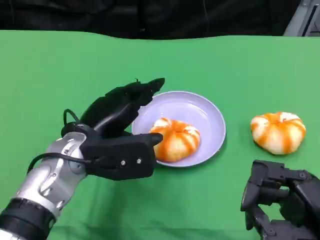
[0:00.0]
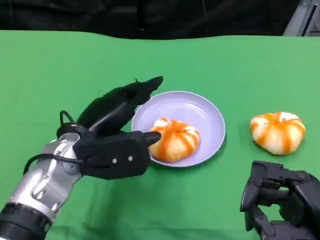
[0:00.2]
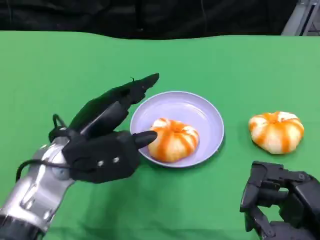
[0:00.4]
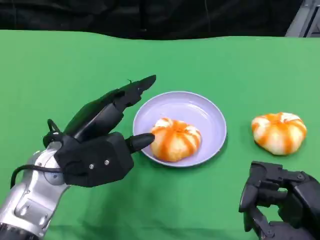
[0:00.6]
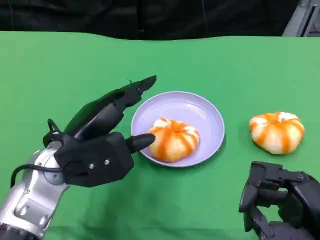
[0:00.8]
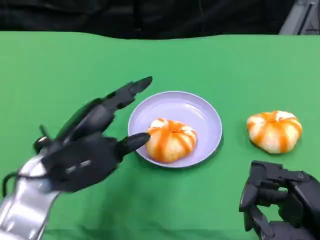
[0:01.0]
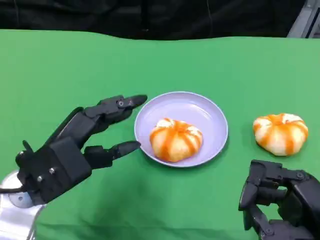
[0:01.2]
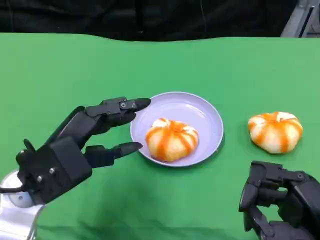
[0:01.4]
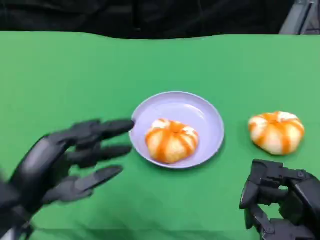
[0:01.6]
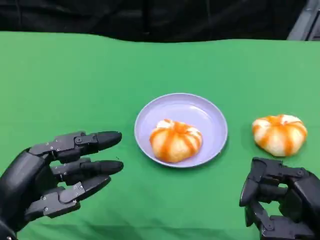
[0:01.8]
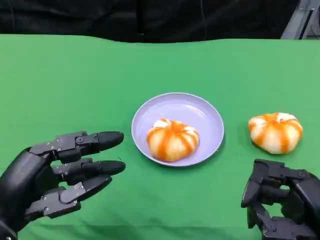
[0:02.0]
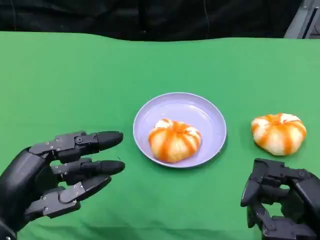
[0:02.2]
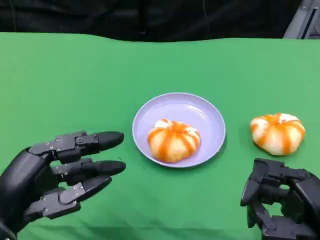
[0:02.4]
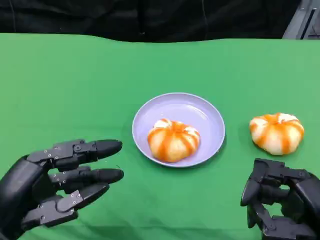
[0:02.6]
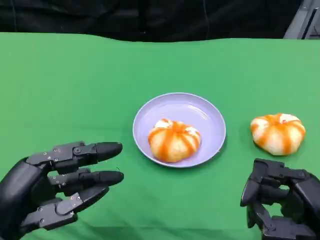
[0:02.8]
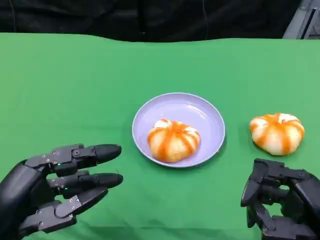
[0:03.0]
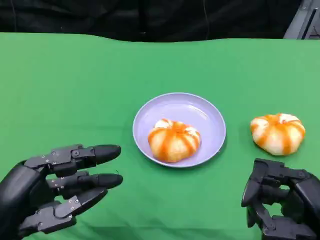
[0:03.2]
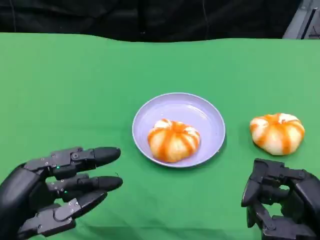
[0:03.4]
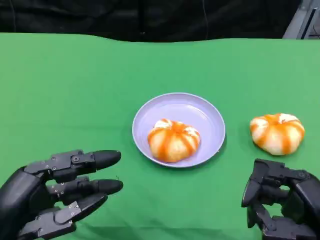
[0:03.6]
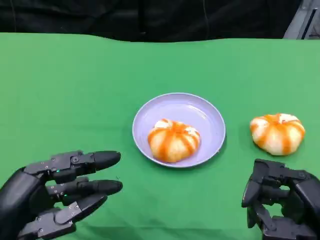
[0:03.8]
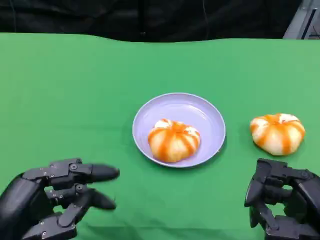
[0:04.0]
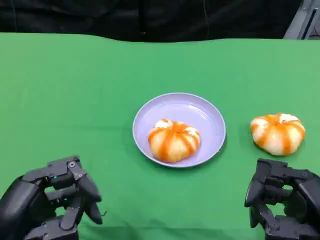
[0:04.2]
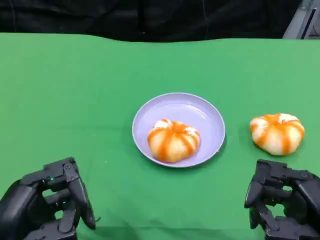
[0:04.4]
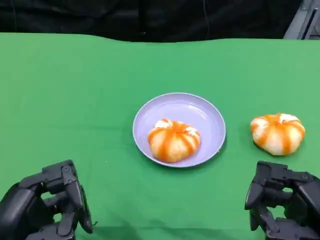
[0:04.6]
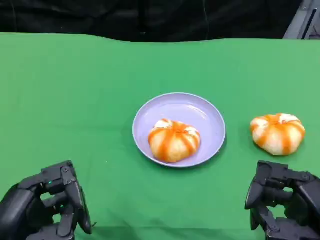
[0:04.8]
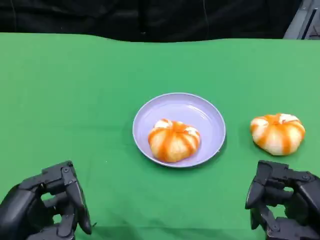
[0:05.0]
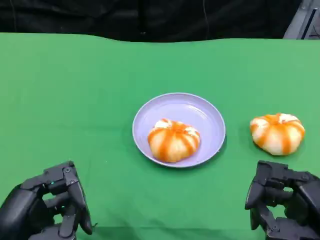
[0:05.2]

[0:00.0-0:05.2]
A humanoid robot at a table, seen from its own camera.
Task of the whole recording: Grasp the bread from the table and place it into the plate.
0:00.0 to 0:01.8: The left hand goes about 15 cm backward and to the left.
0:01.8 to 0:05.2: The hands make only small movements.

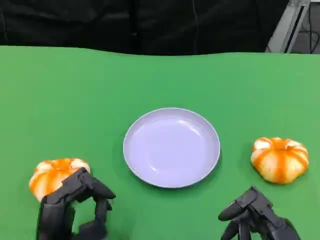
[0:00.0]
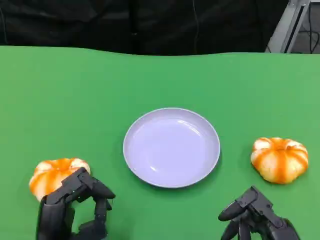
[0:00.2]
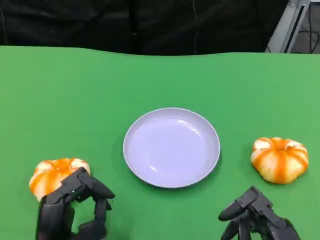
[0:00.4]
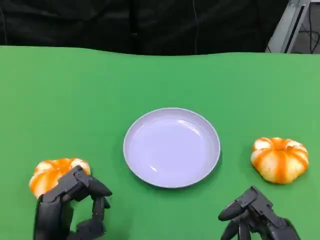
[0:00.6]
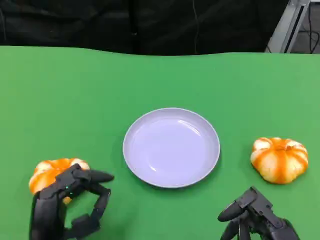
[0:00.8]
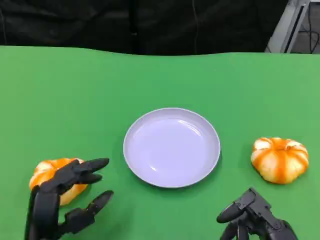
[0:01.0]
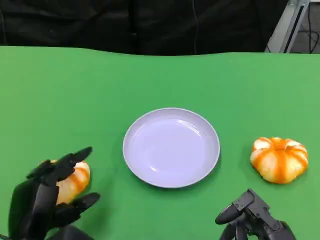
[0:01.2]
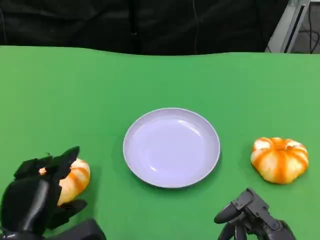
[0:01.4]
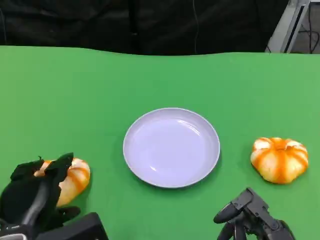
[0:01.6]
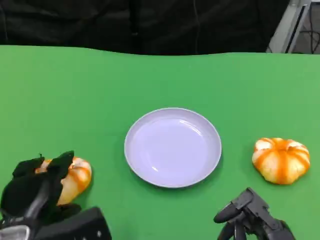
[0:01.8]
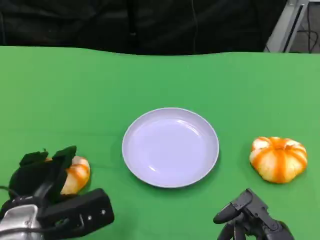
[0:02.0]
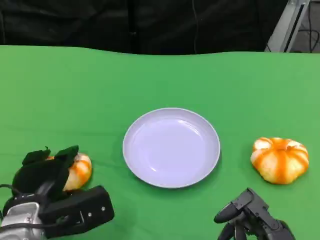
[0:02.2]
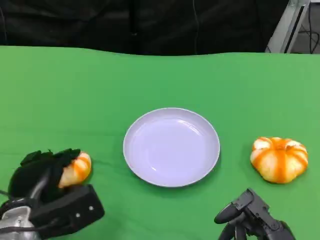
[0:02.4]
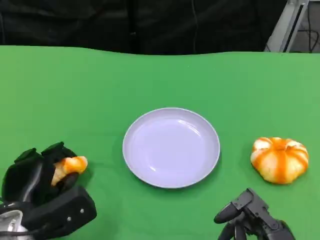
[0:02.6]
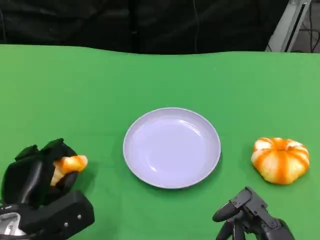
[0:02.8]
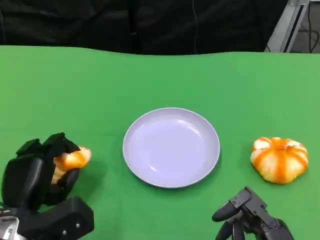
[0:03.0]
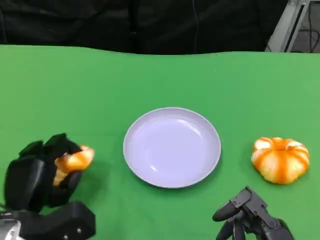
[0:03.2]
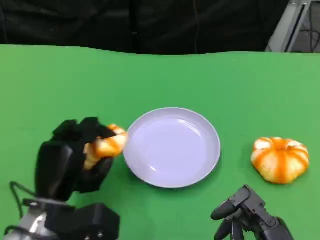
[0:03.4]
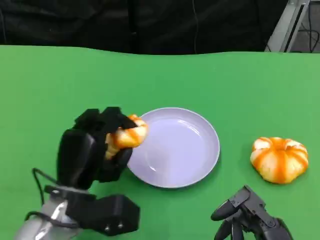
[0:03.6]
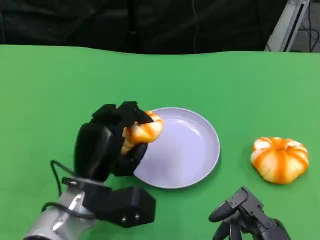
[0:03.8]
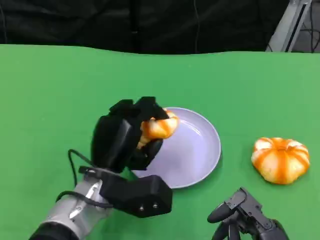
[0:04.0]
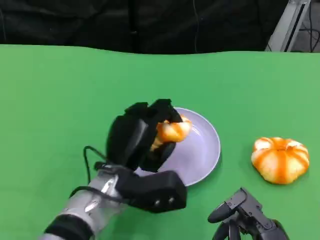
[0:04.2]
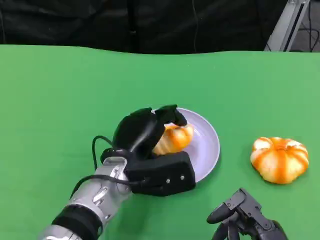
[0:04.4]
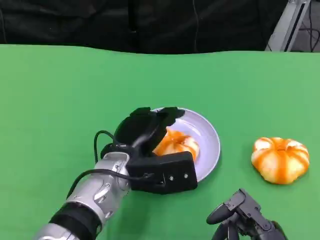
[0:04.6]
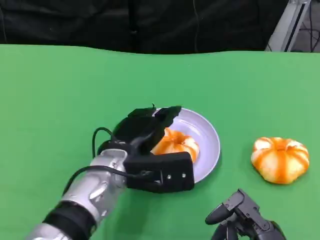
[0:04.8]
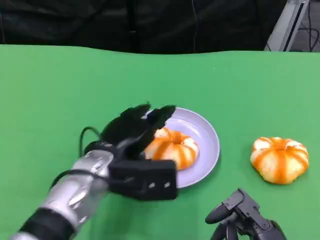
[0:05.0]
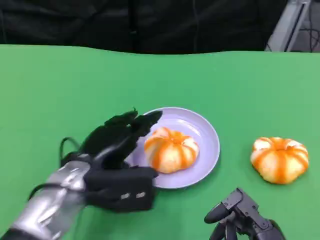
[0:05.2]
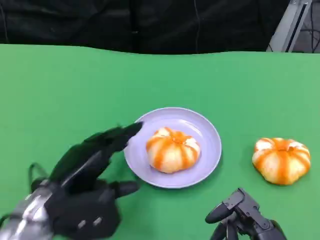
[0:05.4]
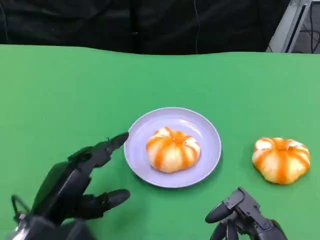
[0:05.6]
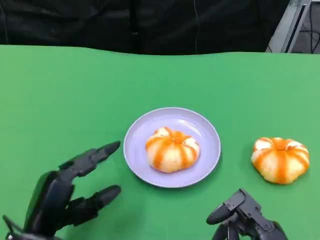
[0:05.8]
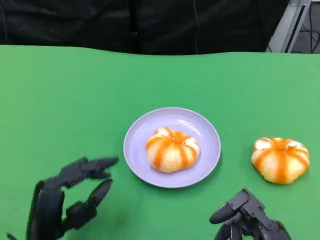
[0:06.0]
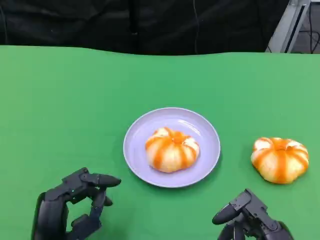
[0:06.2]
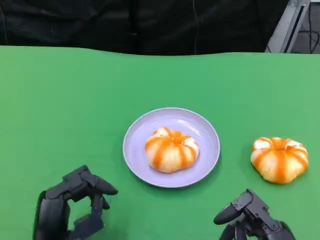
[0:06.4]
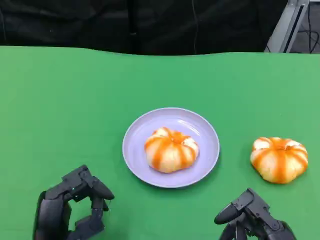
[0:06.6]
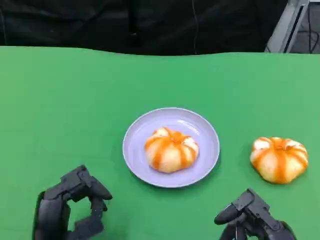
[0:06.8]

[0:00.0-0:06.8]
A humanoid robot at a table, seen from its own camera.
Task of the whole recording: Grasp the bread from the table and place it into the plate.
0:00.0 to 0:01.4: The left hand ends up roughly 5 cm from where it was.
0:01.4 to 0:02.8: The left hand moves about 5 cm.
0:02.8 to 0:04.0: The left hand shifts roughly 10 cm to the right.
0:04.0 to 0:05.4: The left hand heads to the left, covering approximately 10 cm.
0:05.4 to 0:06.8: The left hand shifts some 5 cm backward.

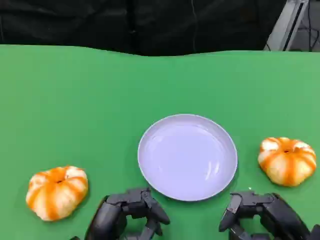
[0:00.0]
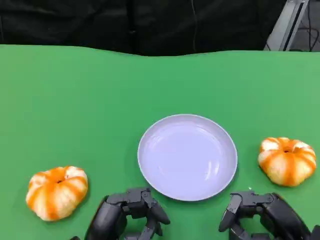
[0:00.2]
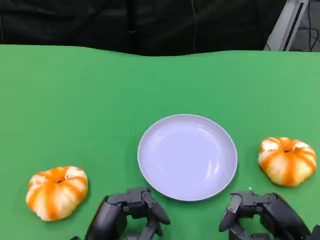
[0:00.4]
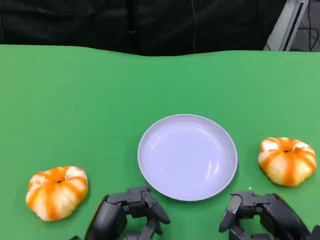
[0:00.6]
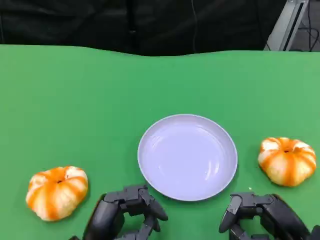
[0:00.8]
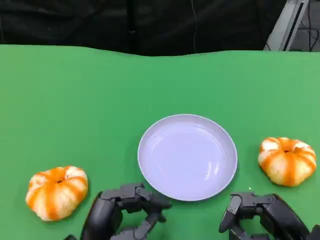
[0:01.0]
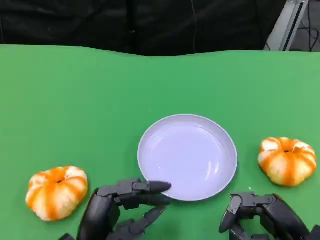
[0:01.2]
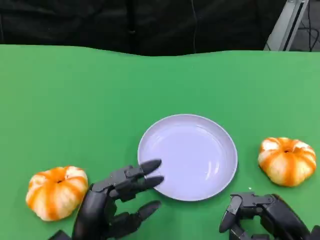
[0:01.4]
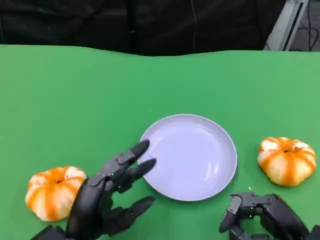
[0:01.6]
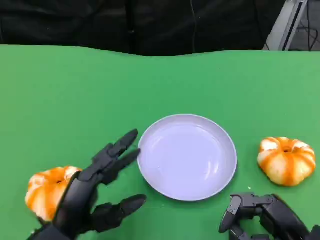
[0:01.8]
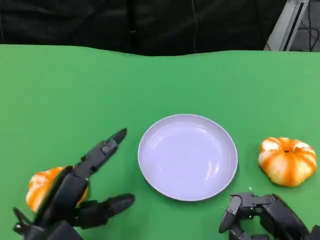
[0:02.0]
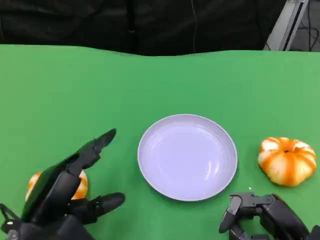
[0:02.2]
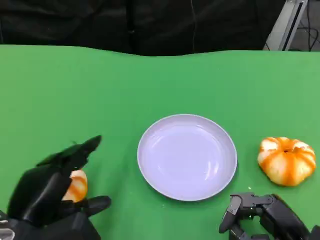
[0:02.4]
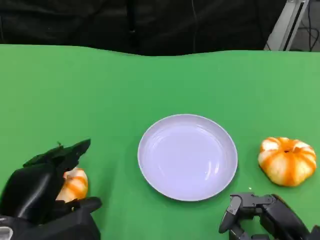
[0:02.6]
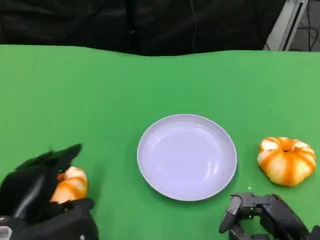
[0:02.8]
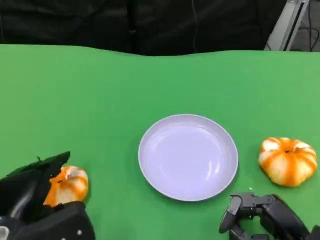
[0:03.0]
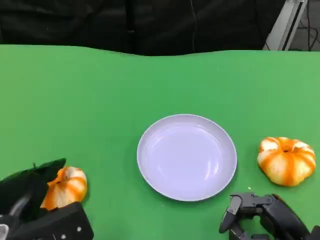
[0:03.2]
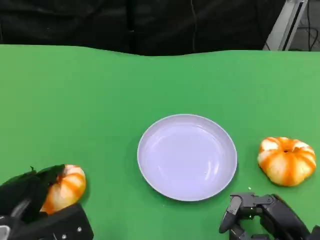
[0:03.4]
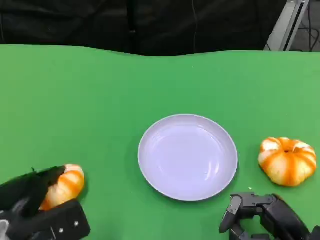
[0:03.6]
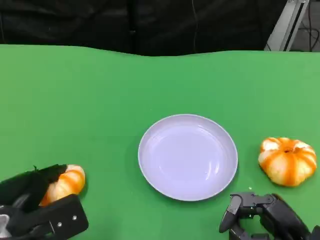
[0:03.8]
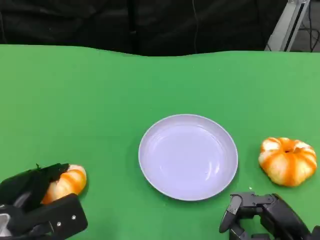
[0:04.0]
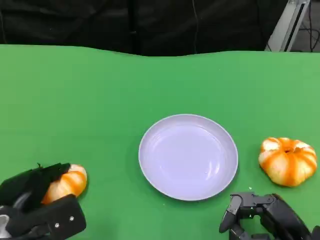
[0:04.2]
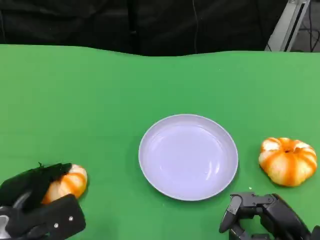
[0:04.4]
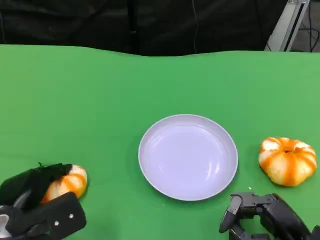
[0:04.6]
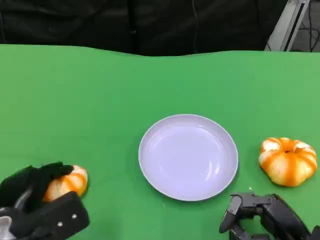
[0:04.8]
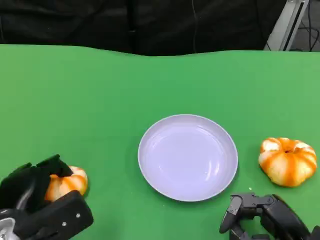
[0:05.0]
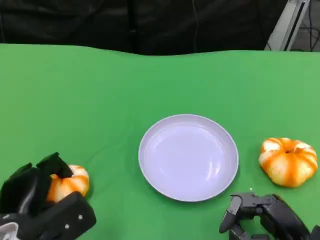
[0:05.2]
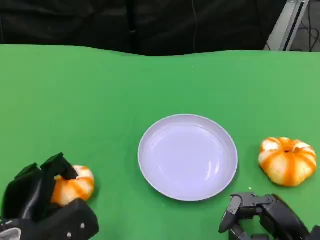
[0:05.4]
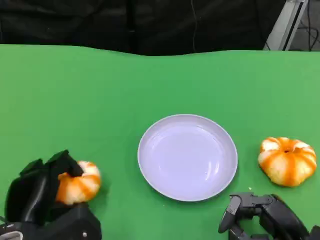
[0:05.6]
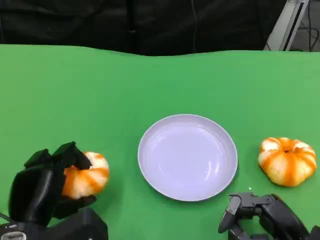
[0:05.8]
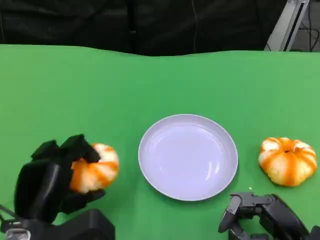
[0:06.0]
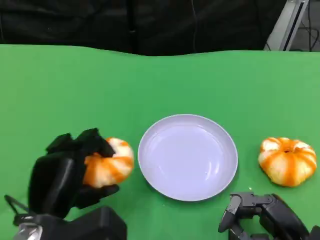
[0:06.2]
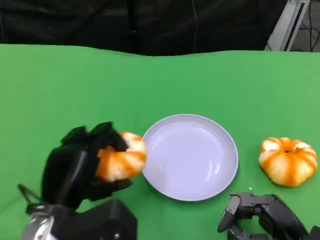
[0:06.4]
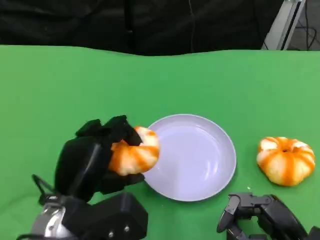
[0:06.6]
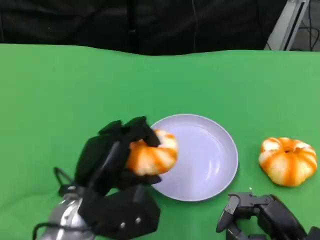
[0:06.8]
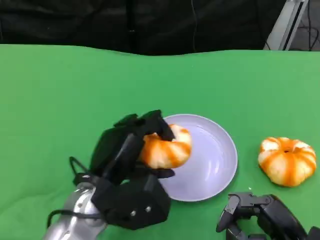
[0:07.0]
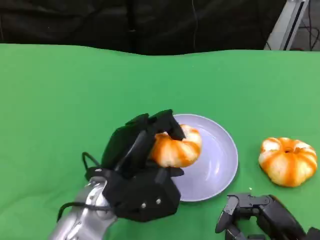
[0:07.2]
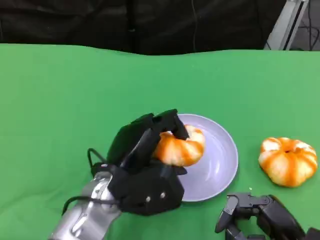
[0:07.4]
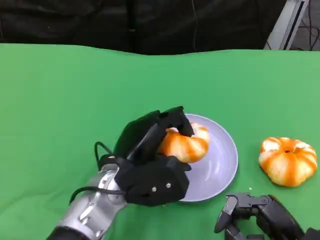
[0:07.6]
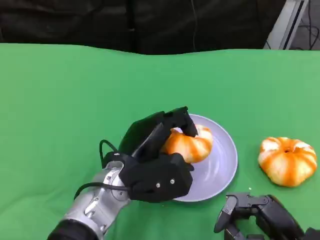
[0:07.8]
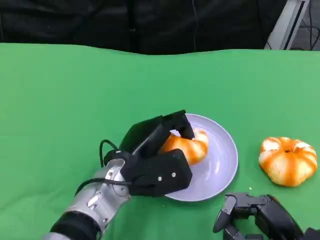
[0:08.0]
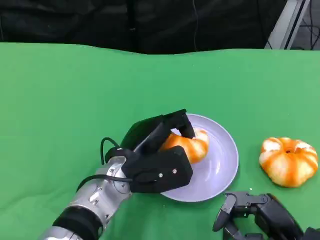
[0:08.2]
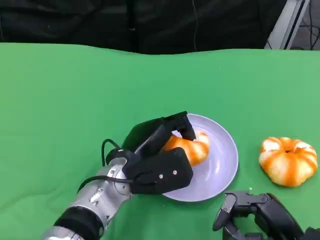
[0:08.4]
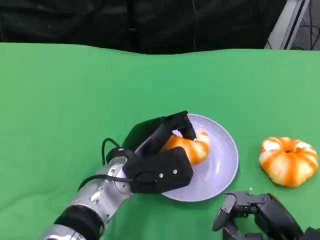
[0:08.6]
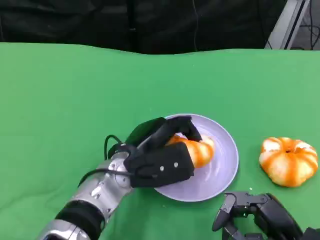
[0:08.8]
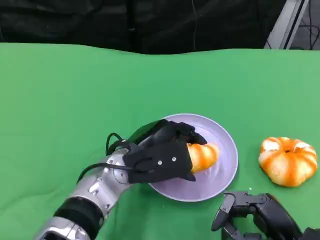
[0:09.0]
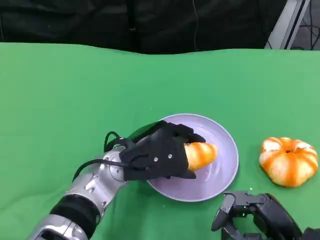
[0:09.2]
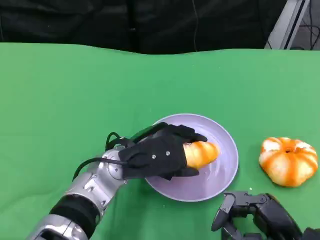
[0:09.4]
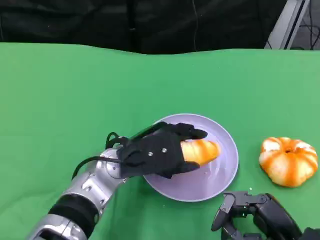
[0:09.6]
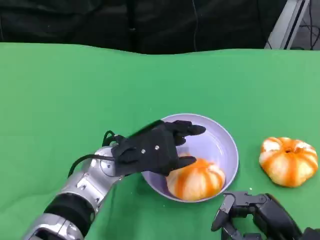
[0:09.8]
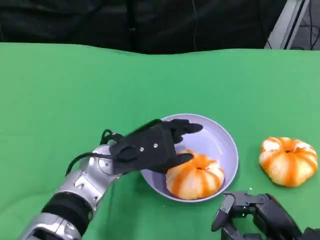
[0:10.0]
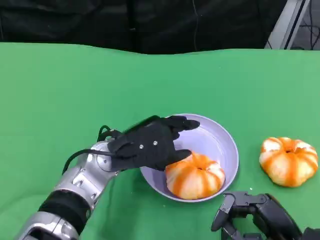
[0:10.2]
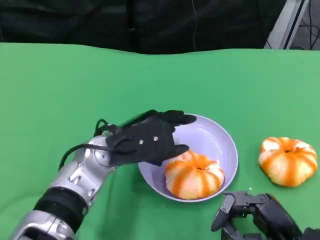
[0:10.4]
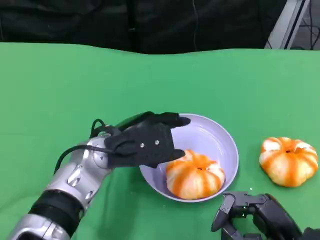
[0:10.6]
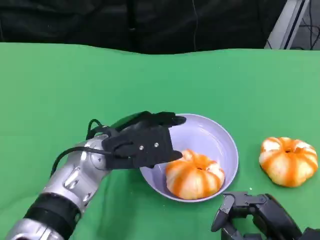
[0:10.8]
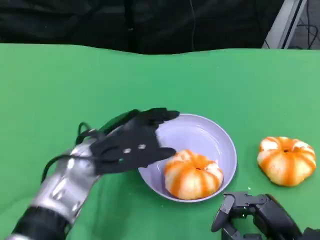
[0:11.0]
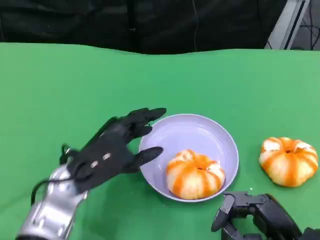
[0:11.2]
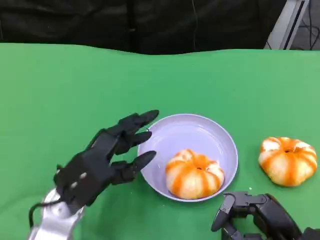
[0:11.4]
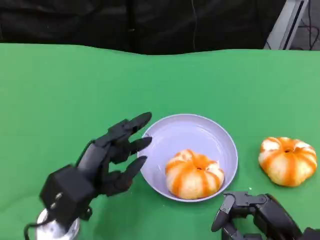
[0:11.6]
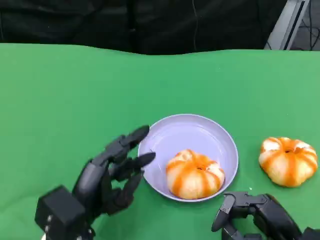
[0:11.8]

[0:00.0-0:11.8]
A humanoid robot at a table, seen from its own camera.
Task of the whole recording: Grasp the bread from the table and place it into the plate.
0:00.0 to 0:01.4: The hands make only small movements.
0:01.4 to 0:03.0: The left hand shifts roughly 10 cm to the left.
0:03.0 to 0:04.4: The hands move only a little.
0:04.4 to 0:06.0: The left hand shifts by roughly 5 cm.
0:06.0 to 0:07.4: The left hand shifts roughly 10 cm to the right and forward.
0:07.4 to 0:08.8: There are only small adjustments of the hands.
0:08.8 to 0:10.4: The hands move only a little.
0:10.4 to 0:11.8: The left hand moves backward, downward and to the left, approximately 15 cm.
